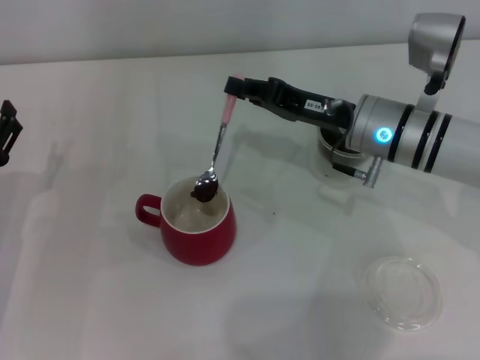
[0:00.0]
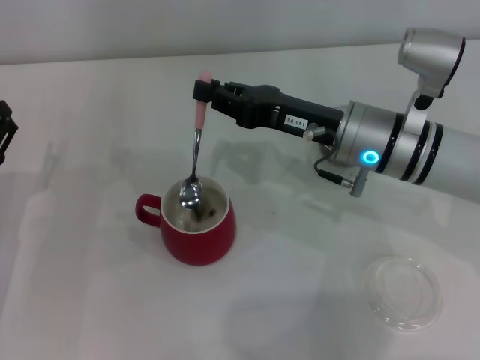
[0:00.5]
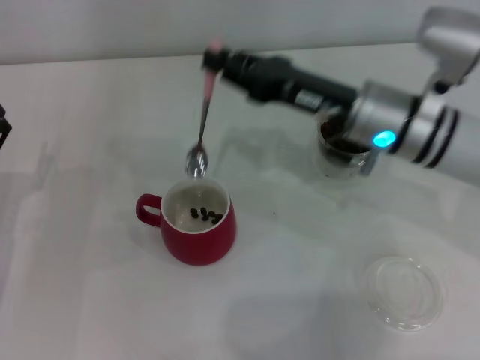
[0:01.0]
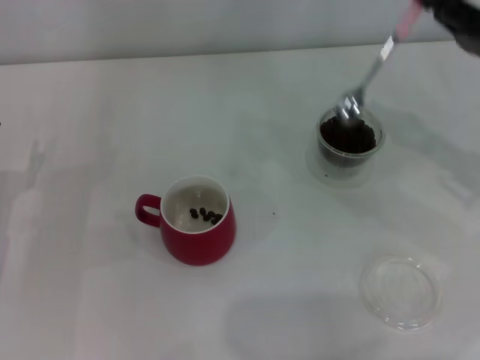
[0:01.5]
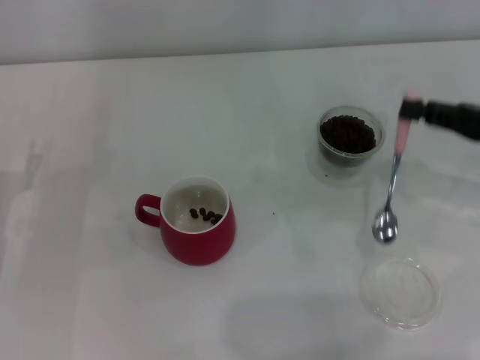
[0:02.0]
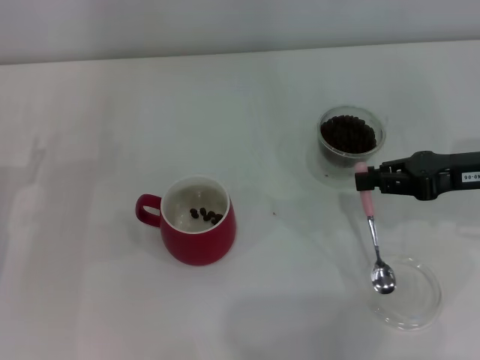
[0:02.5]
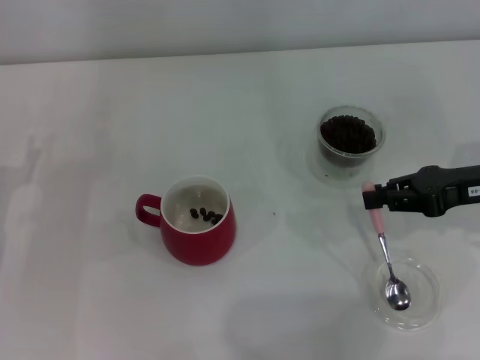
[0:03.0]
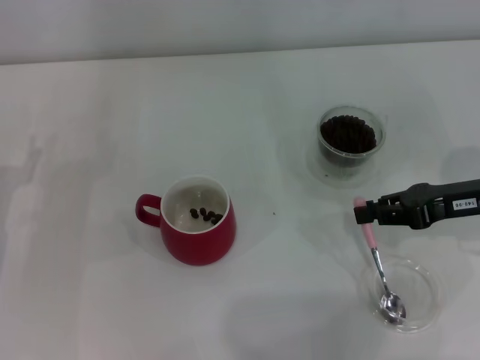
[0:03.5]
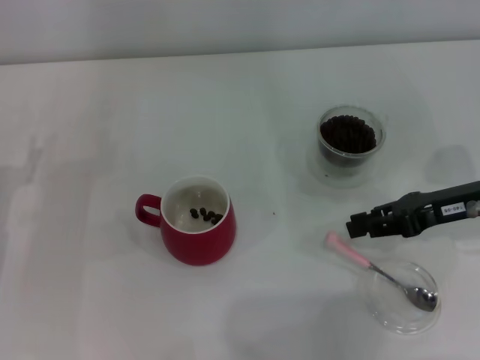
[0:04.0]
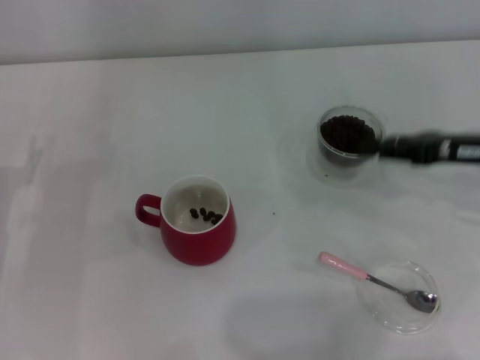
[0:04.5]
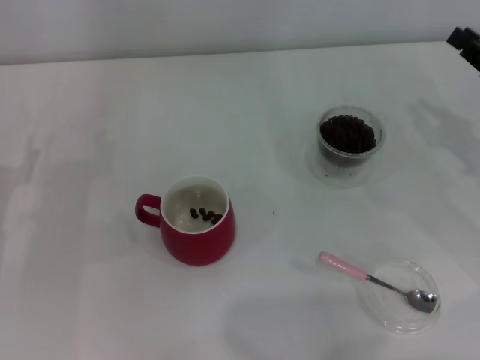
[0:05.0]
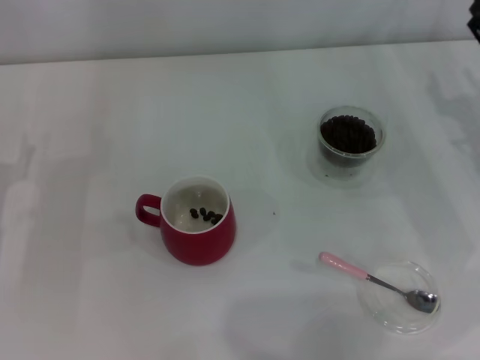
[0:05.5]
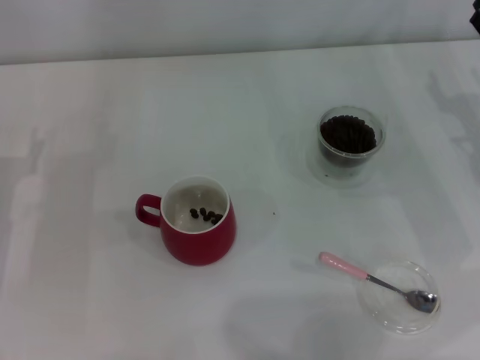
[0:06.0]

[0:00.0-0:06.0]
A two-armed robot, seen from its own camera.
Task of the whole recording: Use a pink spoon to take out the coffee beans from the glass and pour them into the red cup.
Step, 0:01.0 to 0:04.0: Place the spoon back in its original place with the right gripper.
0:00.0 to 0:02.0: The right gripper is displaced to the right and backward by roughly 20 cm.
0:02.0 to 0:04.0: The right gripper ends up roughly 5 cm from where it was.
0:04.0 to 0:06.0: The right gripper opens.
